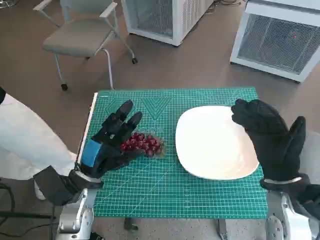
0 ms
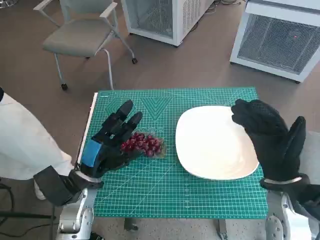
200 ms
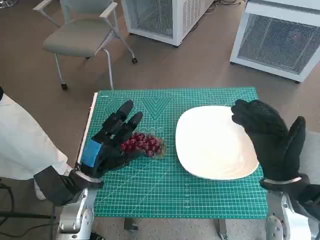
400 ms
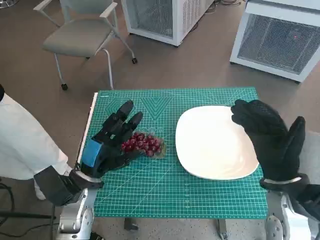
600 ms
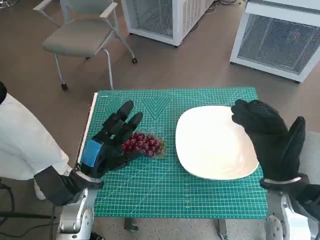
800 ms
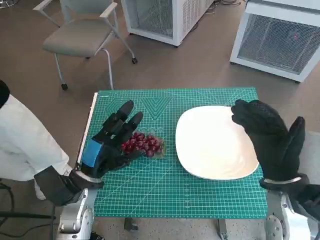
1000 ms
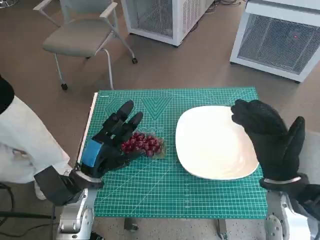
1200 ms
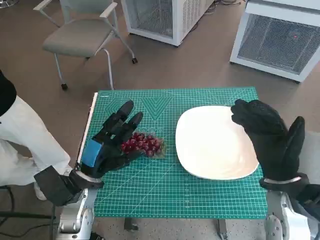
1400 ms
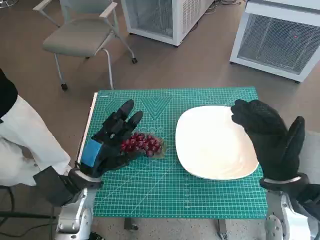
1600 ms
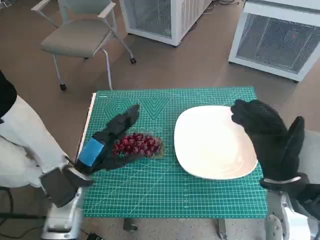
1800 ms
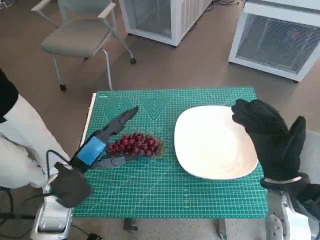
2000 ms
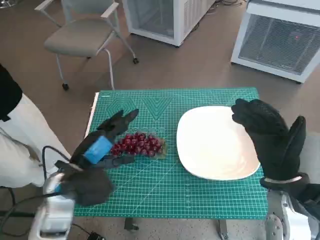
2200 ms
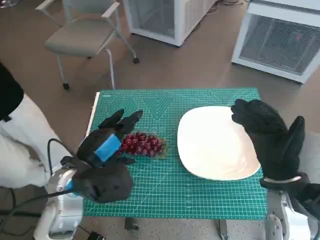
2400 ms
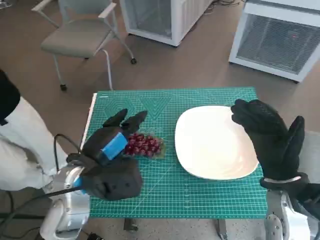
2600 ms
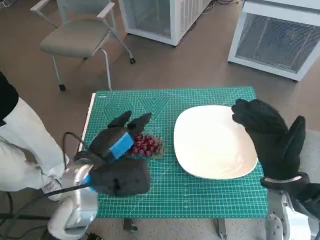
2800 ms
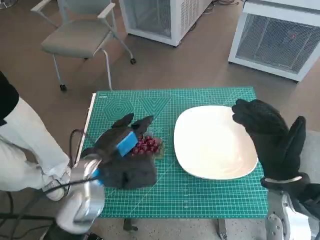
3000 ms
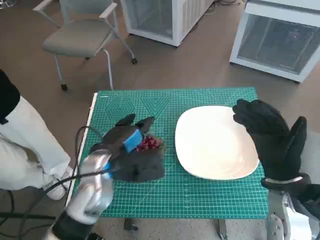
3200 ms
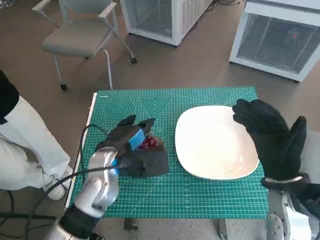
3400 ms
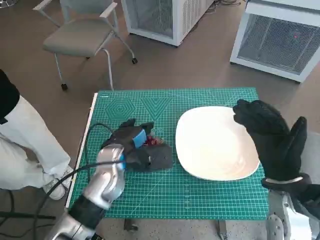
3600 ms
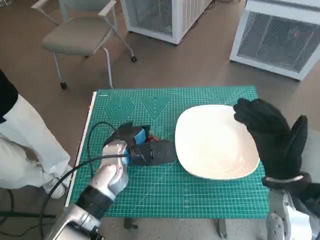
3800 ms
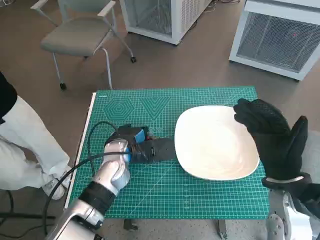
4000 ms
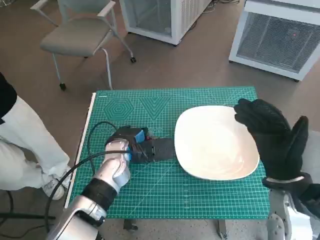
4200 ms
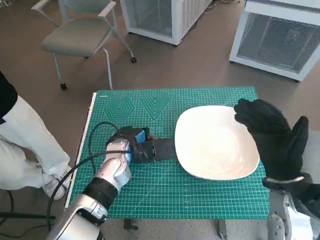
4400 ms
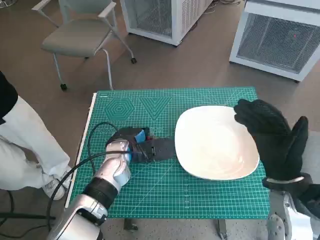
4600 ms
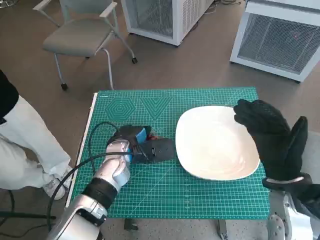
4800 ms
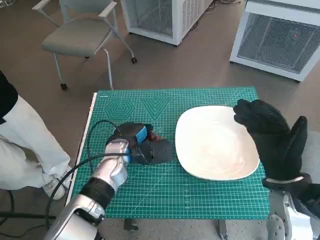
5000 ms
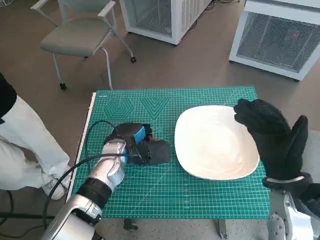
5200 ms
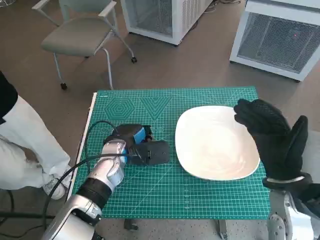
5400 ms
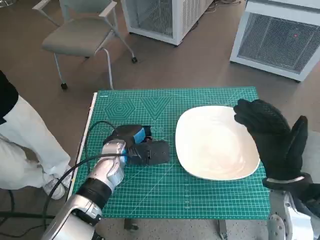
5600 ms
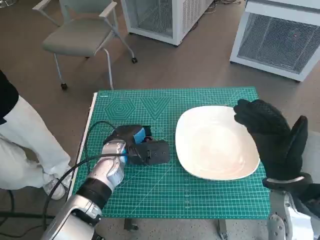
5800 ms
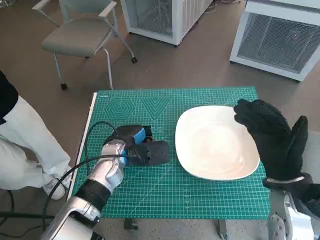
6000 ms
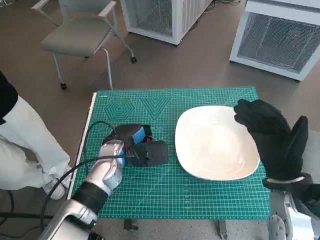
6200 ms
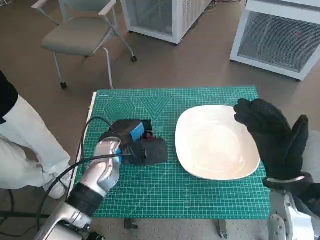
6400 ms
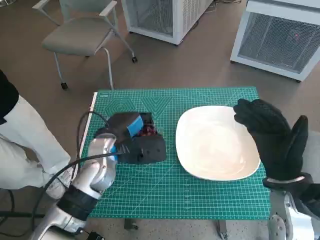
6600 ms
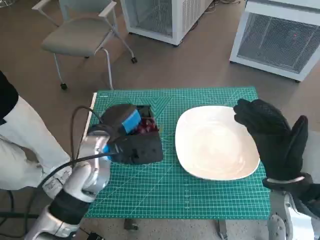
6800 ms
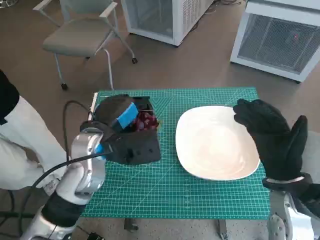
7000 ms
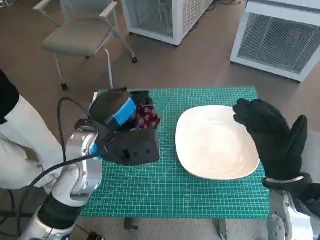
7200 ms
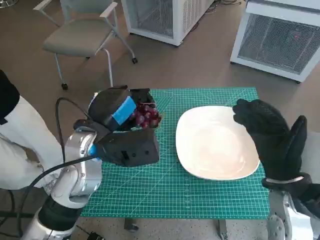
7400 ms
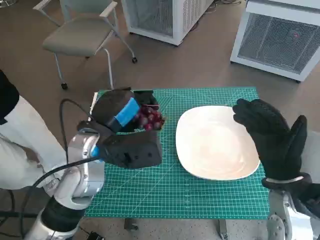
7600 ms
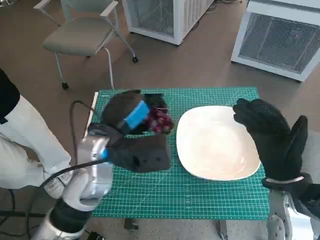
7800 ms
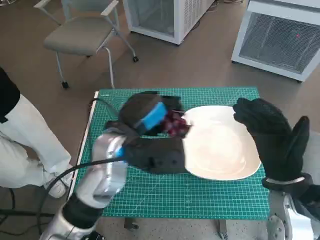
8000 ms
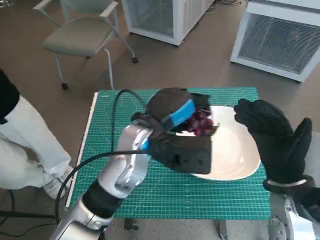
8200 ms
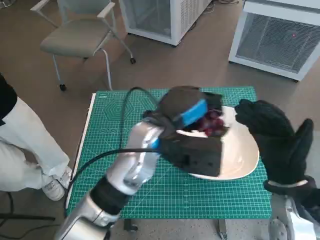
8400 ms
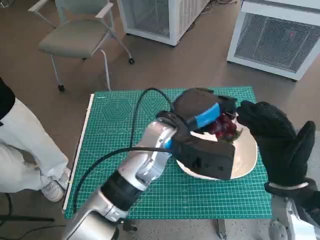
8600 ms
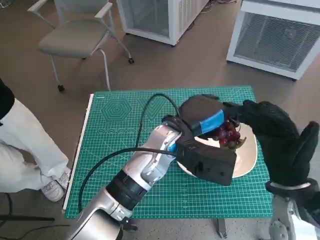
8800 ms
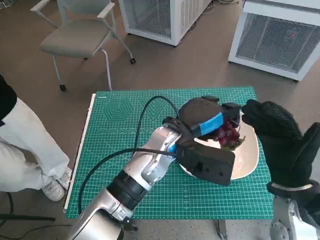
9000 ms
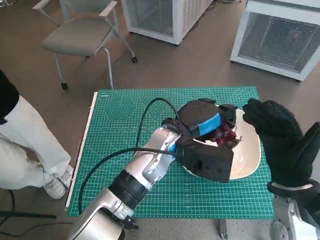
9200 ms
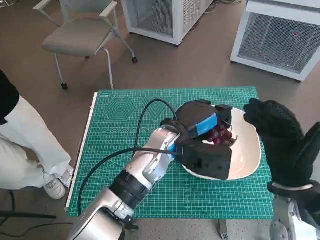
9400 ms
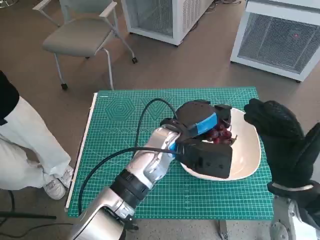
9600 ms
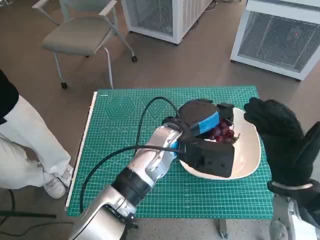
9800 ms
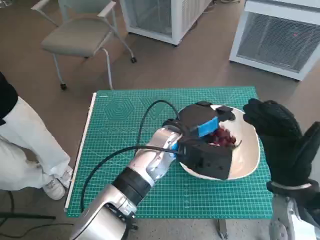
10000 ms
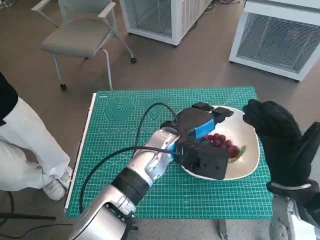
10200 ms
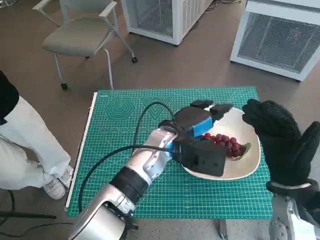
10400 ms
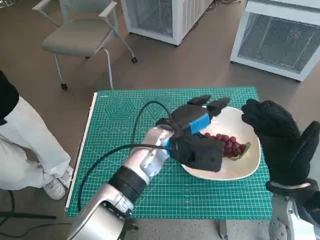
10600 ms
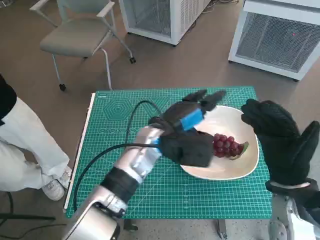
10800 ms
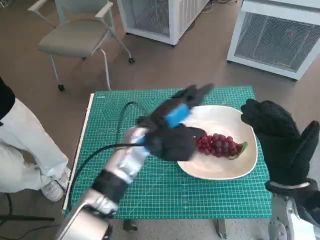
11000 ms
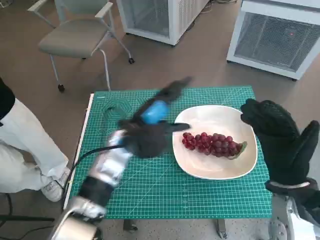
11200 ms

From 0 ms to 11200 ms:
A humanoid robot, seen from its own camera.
Task of the whole recording: Pick up the grapes and put them on the plate.
Step, from 0 ms to 5400 ms: Grasp the grapes with left hand.
Step, from 5800 ms to 10200 ms: Place the grapes in the plate with left hand.
From 1600 ms to 3200 ms: The left hand travels to the right and upward by roughly 5 cm.
From 3200 ms to 4800 ms: The left hand shifts approximately 10 cm forward and downward.
From 4800 ms to 6400 ms: The hands stay close to where they were, moving slightly.
From 6400 ms to 8000 ms: The left hand is displaced upward by approximately 10 cm.
From 8000 ms to 9600 ms: The left hand goes roughly 10 cm to the right.
From 9600 ms to 11200 ms: The left hand goes roughly 10 cm to the left.

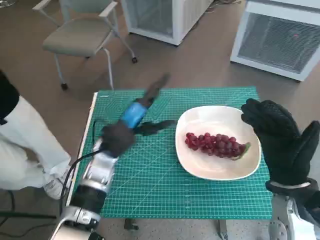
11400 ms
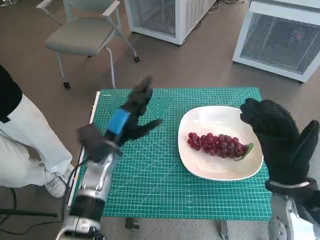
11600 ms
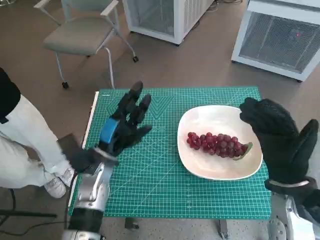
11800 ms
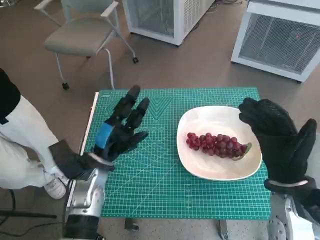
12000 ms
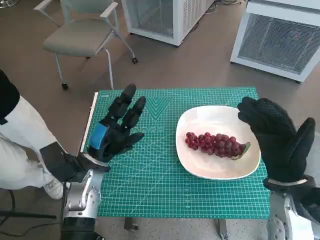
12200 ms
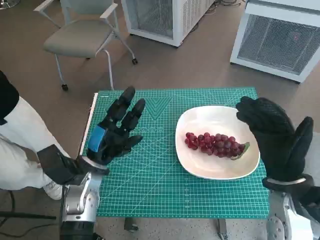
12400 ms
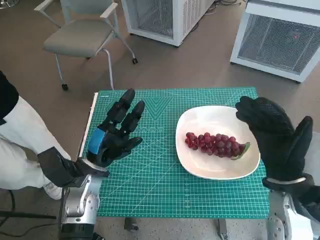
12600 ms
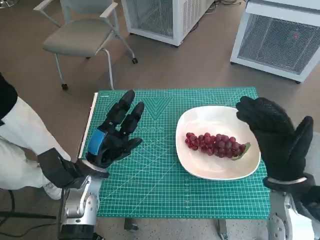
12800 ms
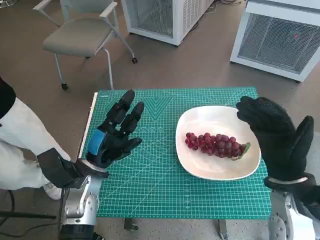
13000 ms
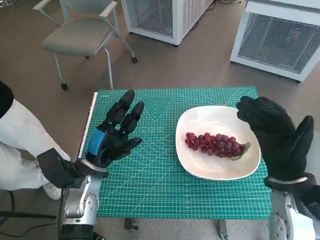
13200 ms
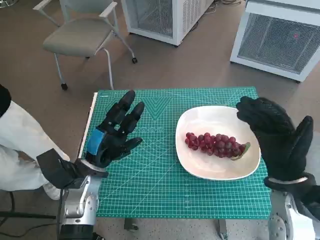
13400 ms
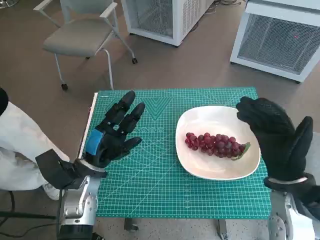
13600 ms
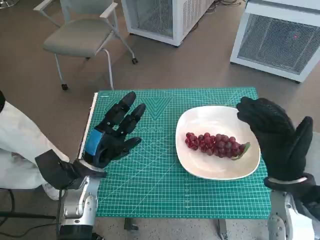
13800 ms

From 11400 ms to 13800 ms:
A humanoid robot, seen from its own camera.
Task of the whole recording: Pick up the grapes and put them on the plate.
From 11400 ms to 12600 ms: The left hand moves to the left and backward, about 5 cm.
From 12600 ms to 13800 ms: The two hands keep their place.

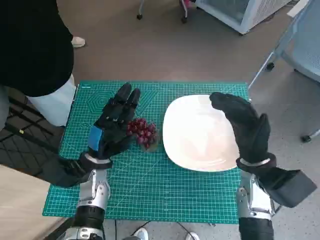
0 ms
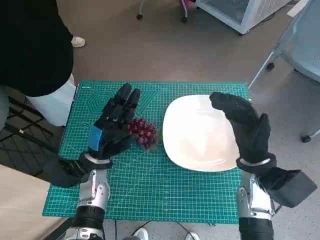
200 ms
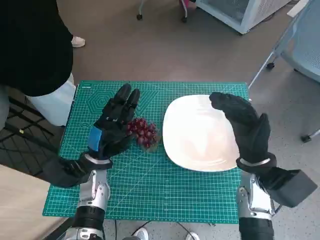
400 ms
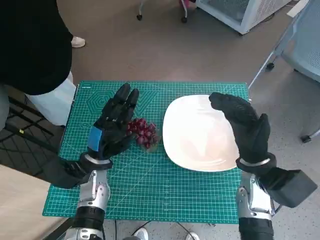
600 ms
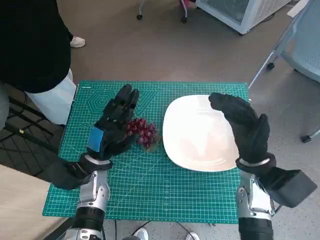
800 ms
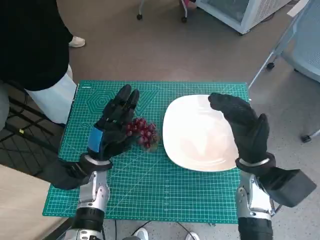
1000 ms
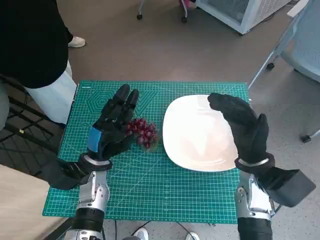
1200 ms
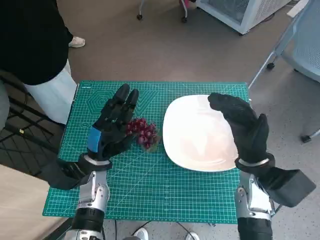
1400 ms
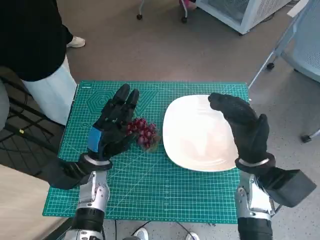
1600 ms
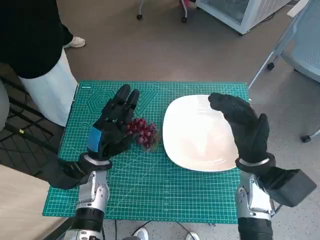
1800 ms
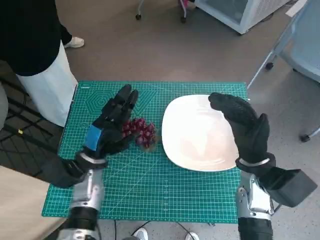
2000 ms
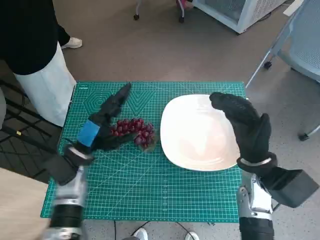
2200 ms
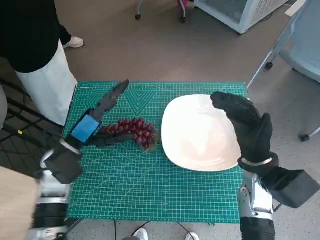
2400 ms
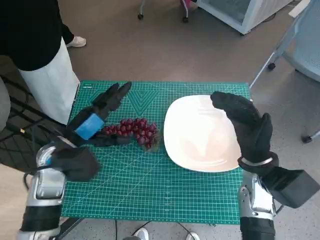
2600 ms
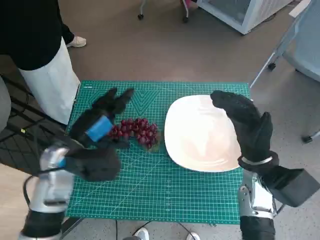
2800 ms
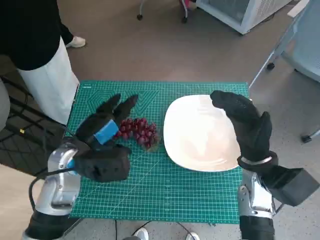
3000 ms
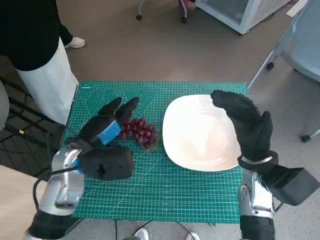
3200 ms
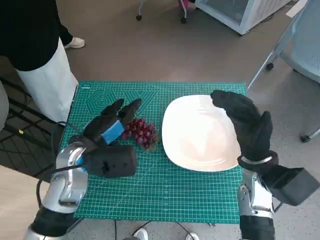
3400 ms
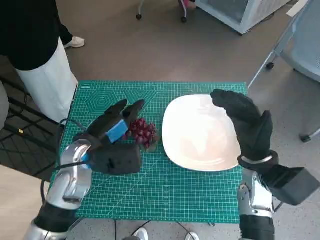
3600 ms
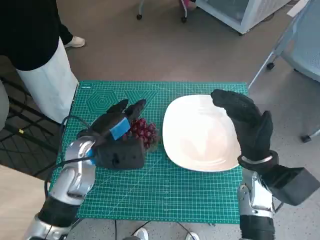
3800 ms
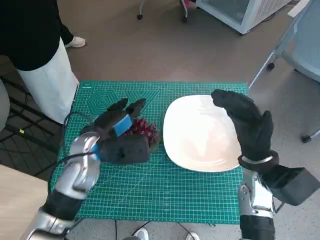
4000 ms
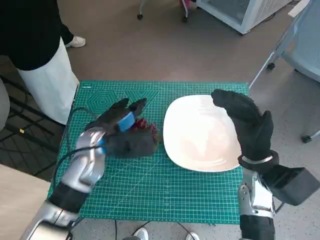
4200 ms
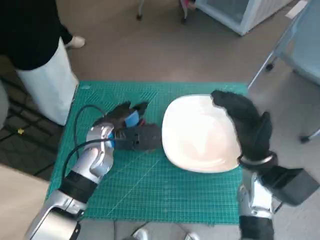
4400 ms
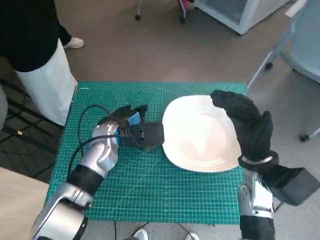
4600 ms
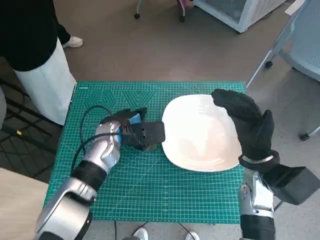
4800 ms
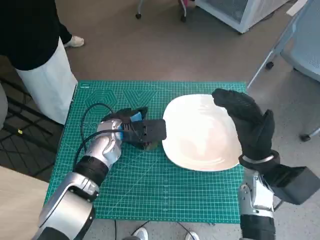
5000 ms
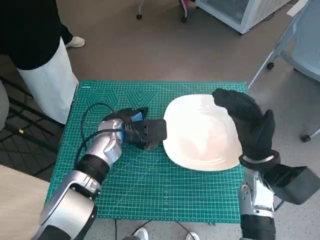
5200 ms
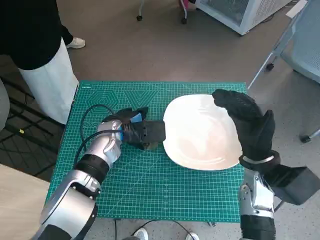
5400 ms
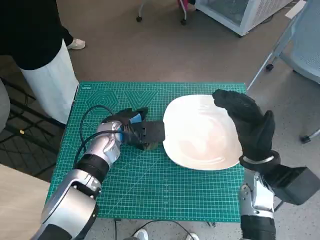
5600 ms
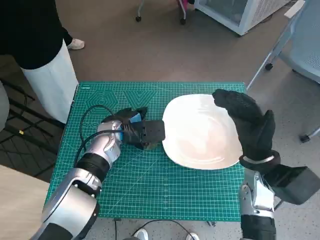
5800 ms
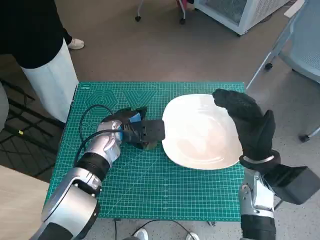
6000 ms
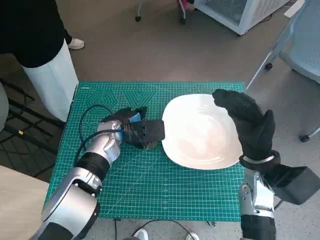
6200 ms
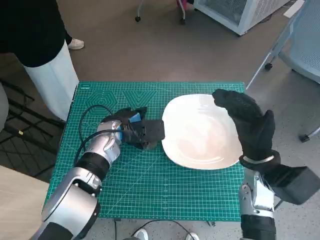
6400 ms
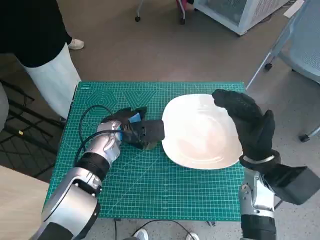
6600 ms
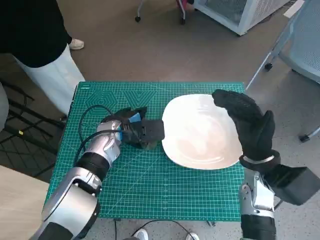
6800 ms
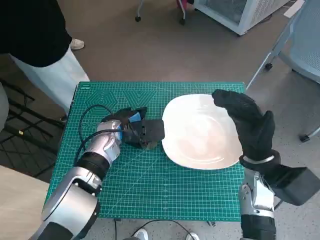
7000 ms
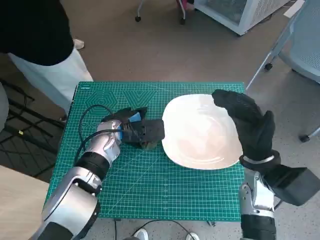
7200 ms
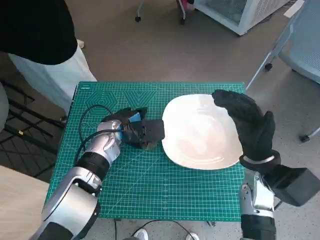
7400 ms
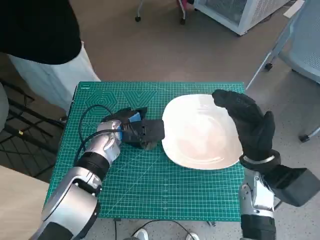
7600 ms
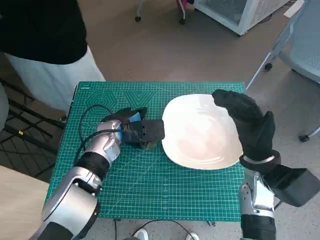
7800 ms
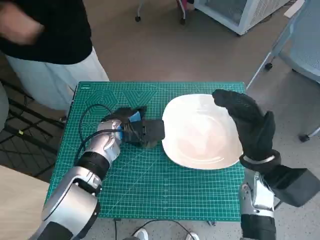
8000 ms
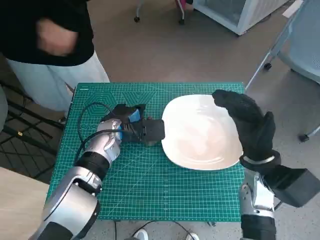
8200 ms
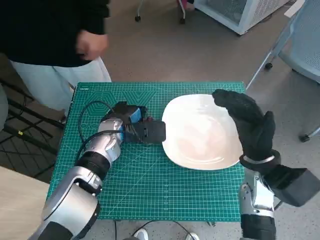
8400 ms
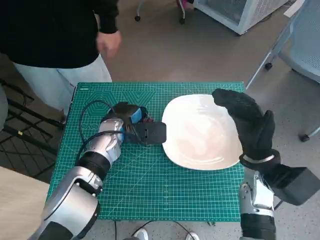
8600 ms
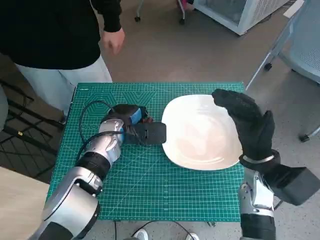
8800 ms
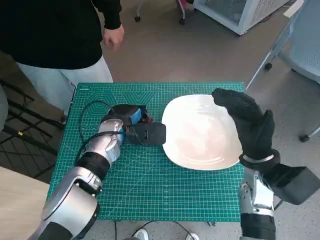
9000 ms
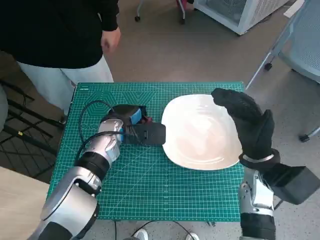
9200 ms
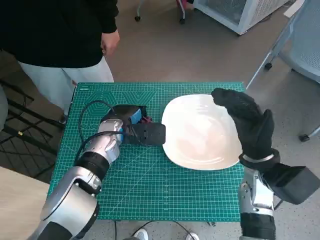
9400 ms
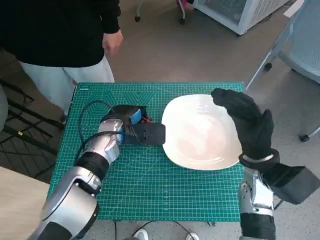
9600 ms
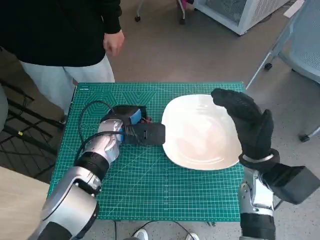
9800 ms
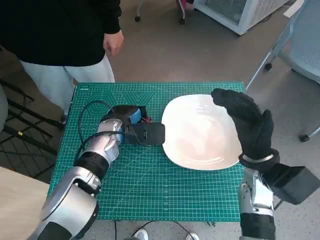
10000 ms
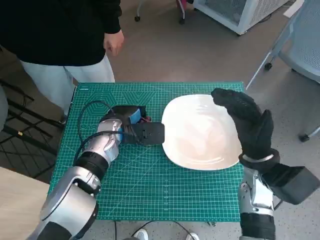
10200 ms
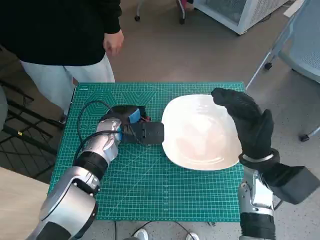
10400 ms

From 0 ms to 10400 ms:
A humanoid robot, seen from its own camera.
Task of the whole recording: Pick up the grapes and put them on the plate.
Step, from 0 ms to 7800 ms: Grasp the grapes with left hand.
From 1400 ms to 3000 ms: The left hand moves upward, some 10 cm.
From 3000 ms to 4400 ms: The left hand shifts approximately 5 cm forward.
From 4400 ms to 6000 ms: There are only small adjustments of the hands.
From 6000 ms to 7400 ms: Both hands stay about where they are.
From 7400 ms to 9000 ms: The hands stay close to where they were, moving slightly.
From 9000 ms to 10400 ms: Neither hand changes place.
